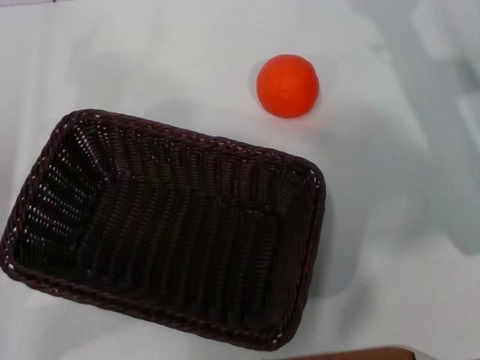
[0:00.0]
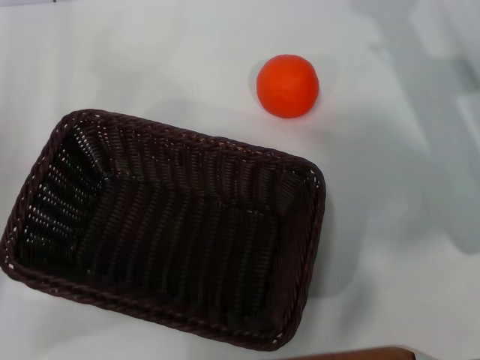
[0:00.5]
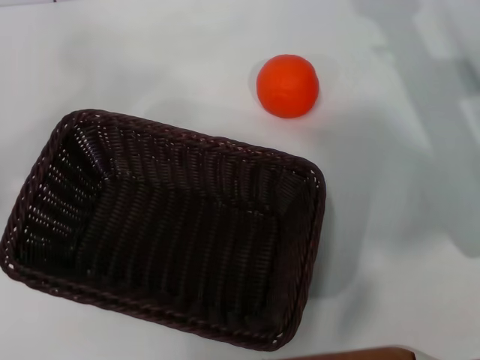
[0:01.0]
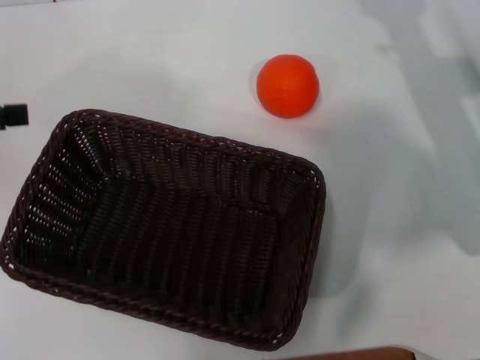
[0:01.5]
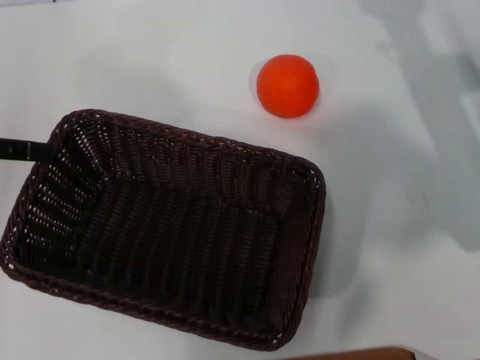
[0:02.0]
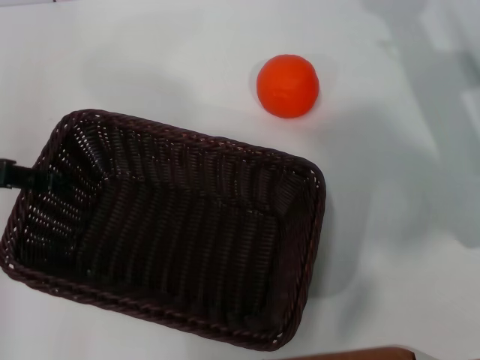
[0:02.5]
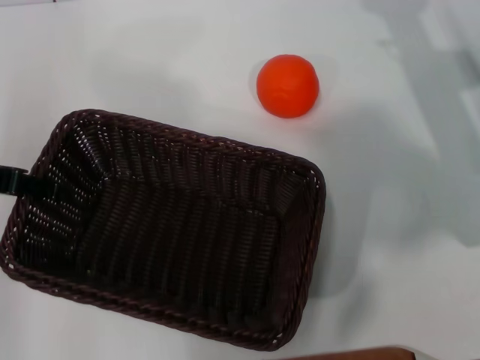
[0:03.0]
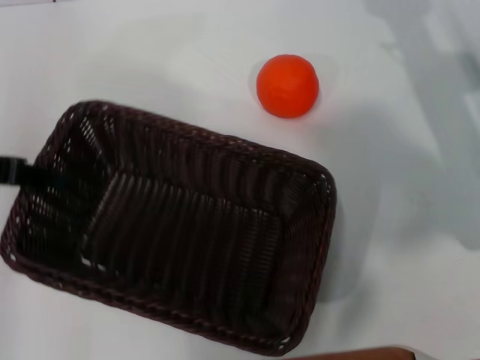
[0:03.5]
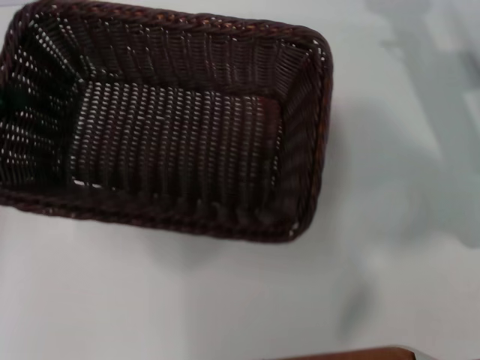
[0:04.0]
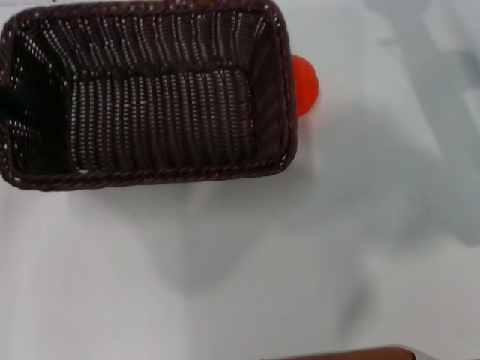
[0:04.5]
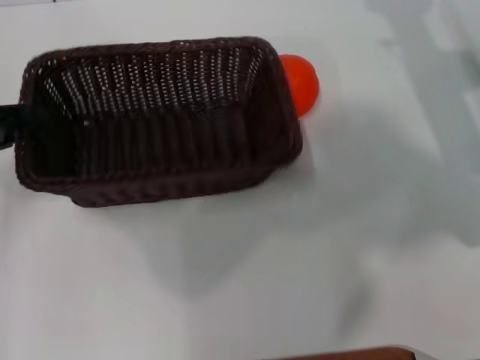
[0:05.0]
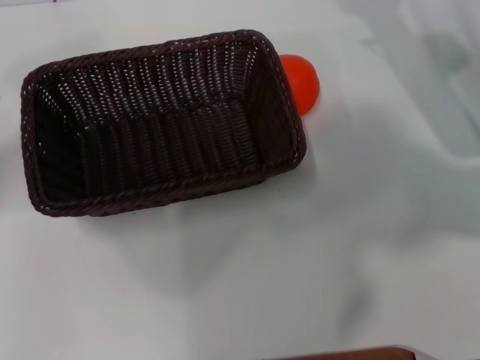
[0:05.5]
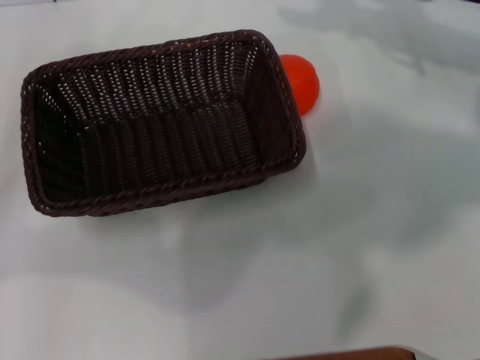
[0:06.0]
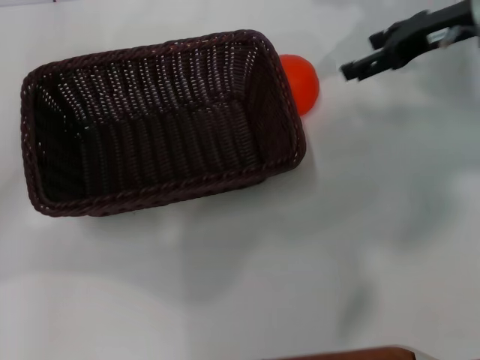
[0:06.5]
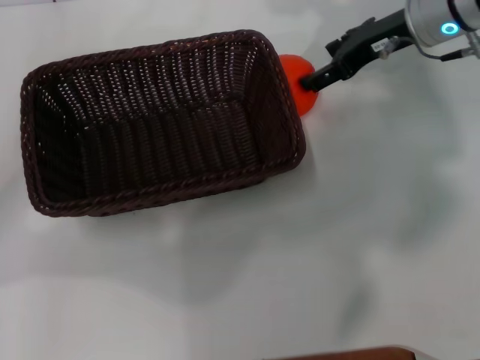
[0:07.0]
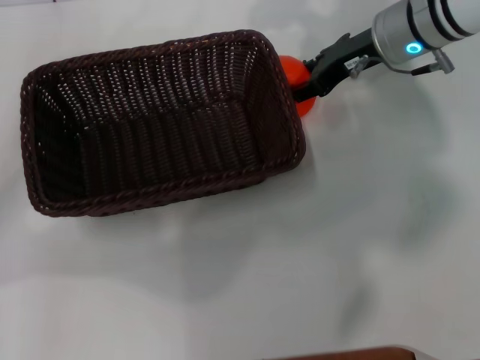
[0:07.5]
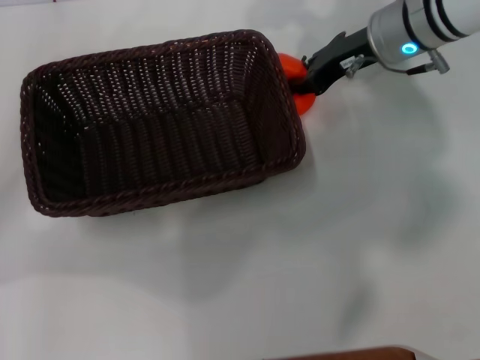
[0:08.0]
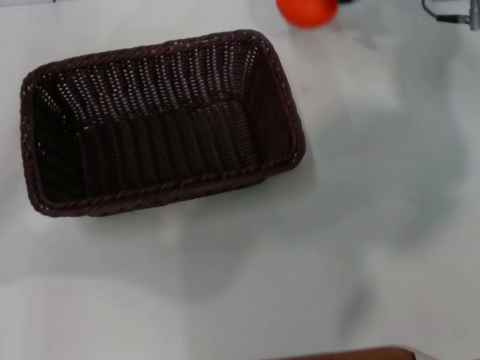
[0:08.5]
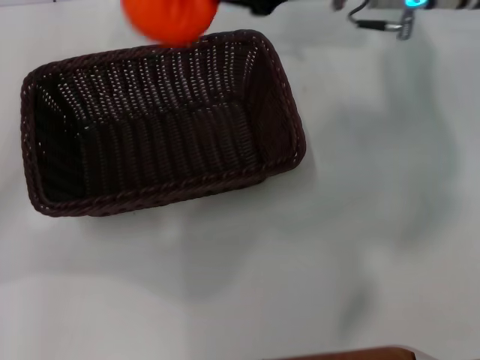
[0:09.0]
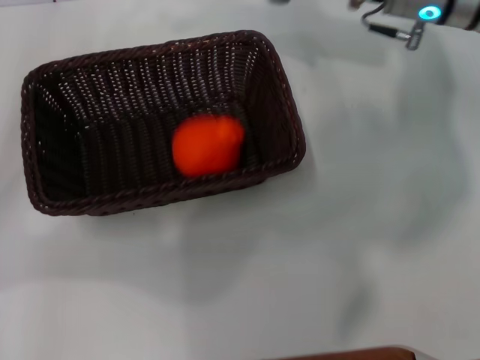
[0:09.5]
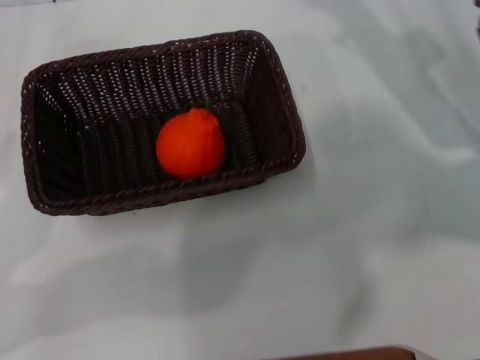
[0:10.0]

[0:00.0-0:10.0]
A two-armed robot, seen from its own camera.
Task of the whole recording: the left gripper pick up the black basket and place it horizontally in the middle of the table, the right gripper pick up the orange and place it into the black basket.
Step, 0:00.0 to 0:03.5: Pick up the dark basket with the left gripper.
Step, 0:04.0 to 0:05.0: Place the dark basket in the center of view with the left gripper.
Step, 0:05.5 to 0:08.0: Pick up the orange with the right gripper.
Step, 0:08.5 to 0:09.0: Place the orange into the dark basket with the right gripper.
0:00.0 to 0:02.0: The left gripper shifts some 15 cm upward and forward.
0:02.0 to 0:04.0: The left gripper closes up.
0:04.0 to 0:06.0: The left gripper shifts by approximately 5 cm, and opens up. Meanwhile the right gripper shifts roughly 10 cm upward and forward.
0:06.0 to 0:08.0: The right gripper heads to the left, covering approximately 10 cm, and closes.
0:08.0 to 0:10.0: The right gripper moves left and right over some 10 cm, changing direction 2 times, and opens its fingers.

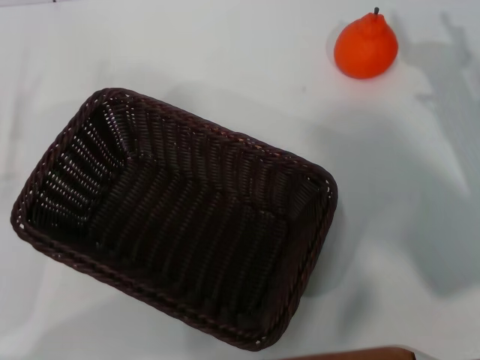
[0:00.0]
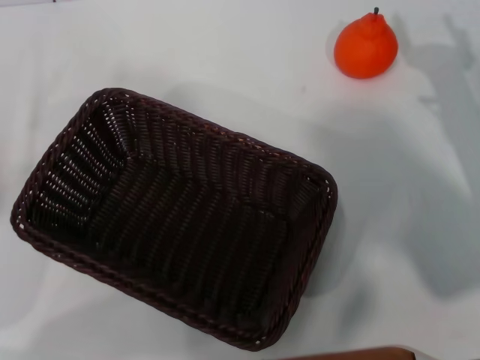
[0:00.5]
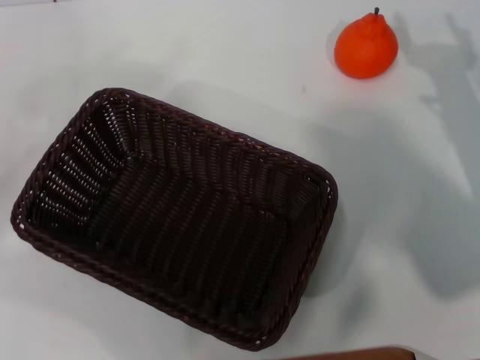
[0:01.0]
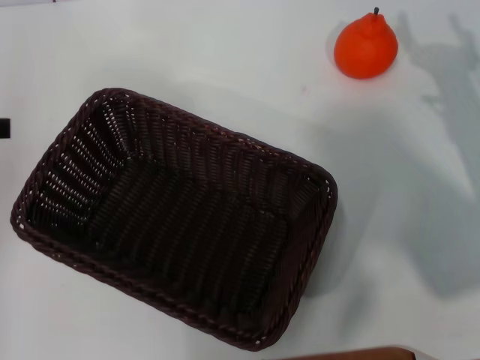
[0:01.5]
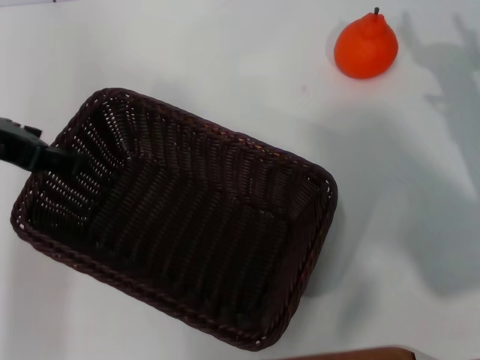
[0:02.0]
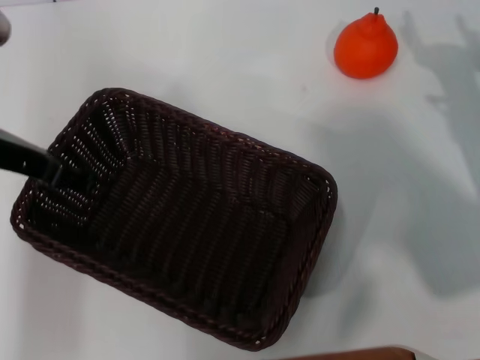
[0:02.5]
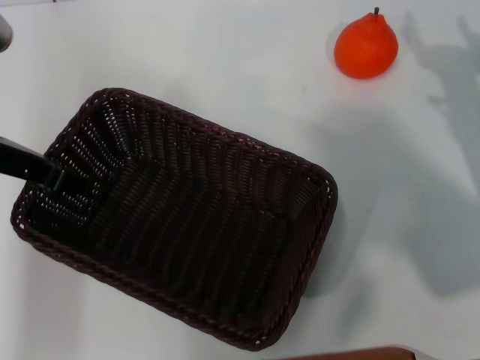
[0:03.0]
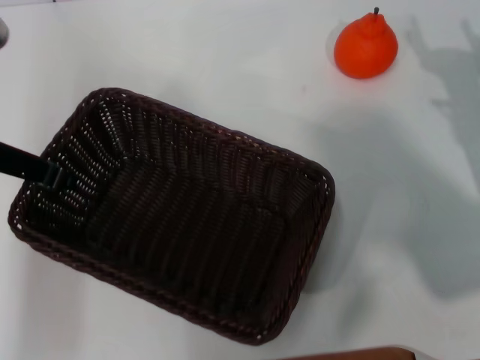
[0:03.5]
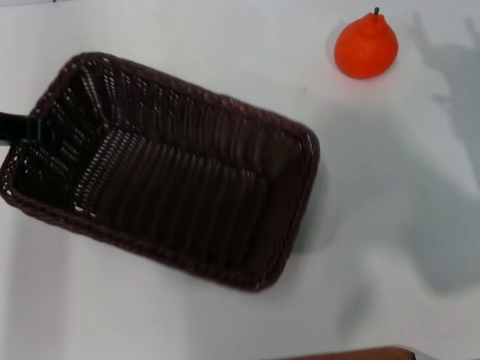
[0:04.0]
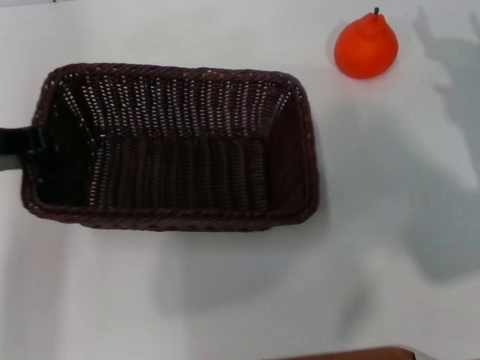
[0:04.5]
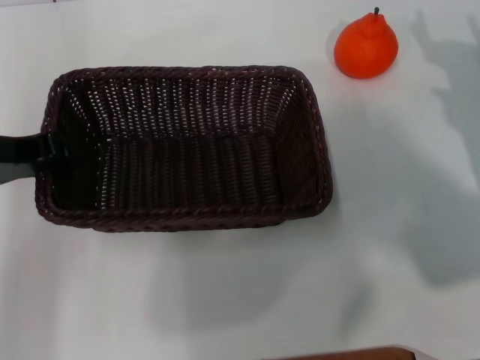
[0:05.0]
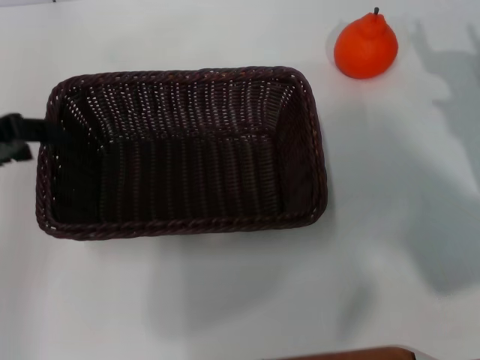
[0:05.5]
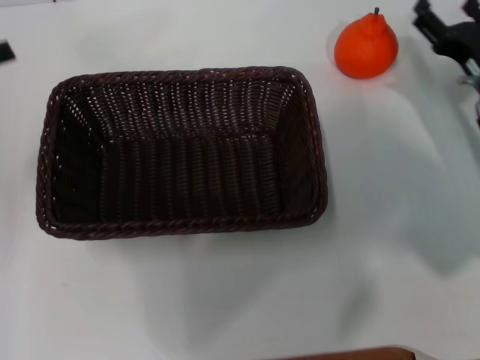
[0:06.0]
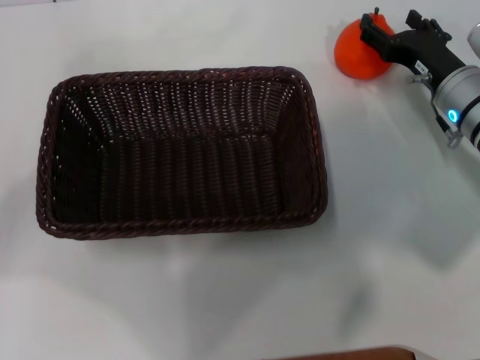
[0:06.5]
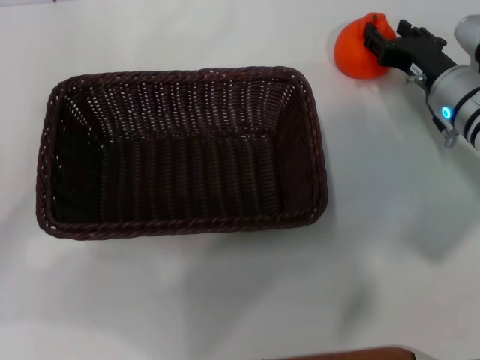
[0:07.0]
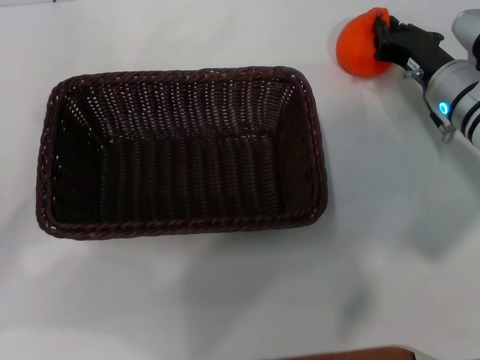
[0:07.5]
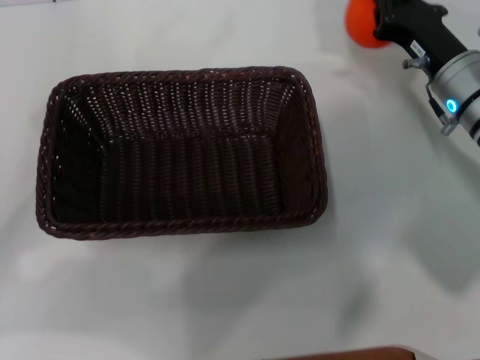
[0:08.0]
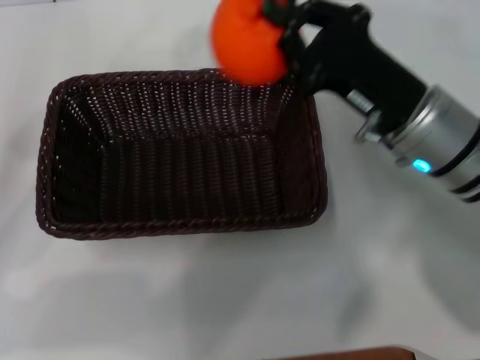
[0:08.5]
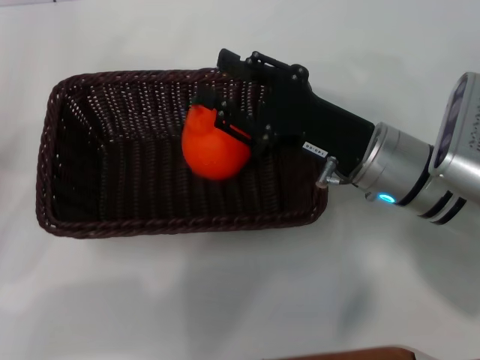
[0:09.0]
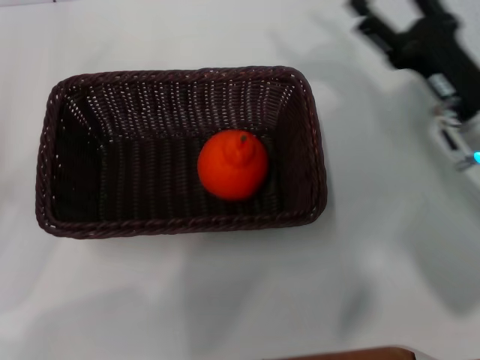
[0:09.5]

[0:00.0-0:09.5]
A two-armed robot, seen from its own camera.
Task of the whole recording: the left gripper pick up the black basket and place it horizontally in the middle of the table, the right gripper pick up the orange and place it into the black basket.
Step, 0:00.0 to 0:03.5: Pick up the dark basket with the left gripper.
Step, 0:04.0 to 0:05.5: Place the dark basket in the center of view with the left gripper.
Step, 0:06.0 to 0:07.5: Pick up the orange with the right gripper.
Step, 0:08.0 to 0:09.0: Place the orange into the dark basket with the right gripper.
0:00.0 to 0:02.0: The left gripper moves upward, forward and to the right, approximately 20 cm.
0:02.0 to 0:04.0: The left gripper closes its fingers.
0:04.0 to 0:05.5: The left gripper opens up.
0:05.5 to 0:07.5: The left gripper moves downward and to the left, approximately 10 cm, and opens up. Meanwhile the right gripper shifts about 10 cm forward and to the left, and closes its fingers.
0:07.5 to 0:09.5: The right gripper moves backward, approximately 10 cm, travels to the left and back again, approximately 10 cm each way, and opens up, while the left gripper moves approximately 5 cm.
